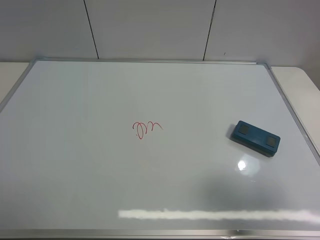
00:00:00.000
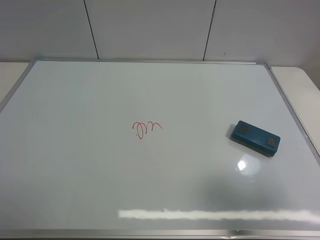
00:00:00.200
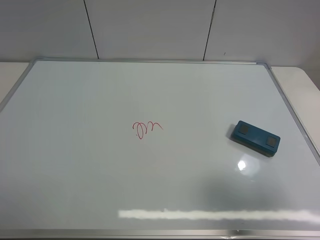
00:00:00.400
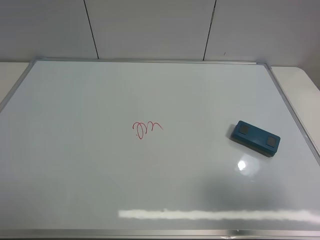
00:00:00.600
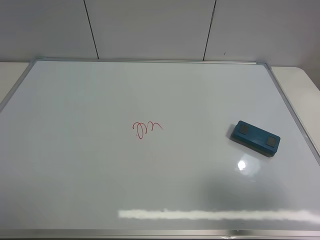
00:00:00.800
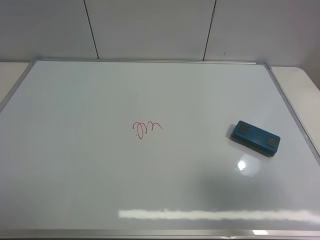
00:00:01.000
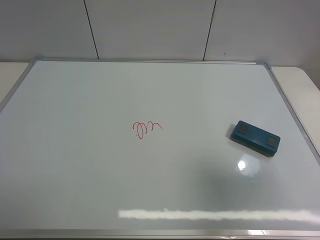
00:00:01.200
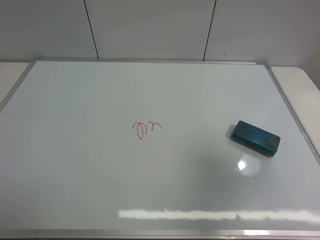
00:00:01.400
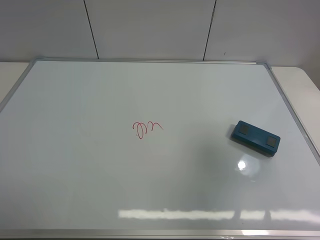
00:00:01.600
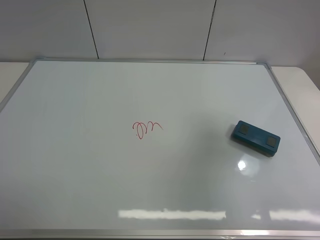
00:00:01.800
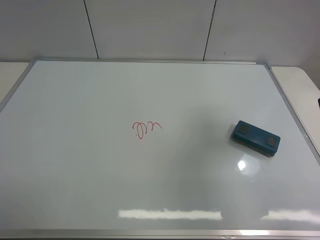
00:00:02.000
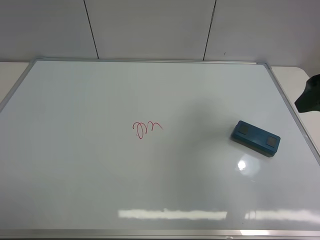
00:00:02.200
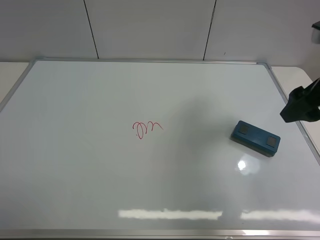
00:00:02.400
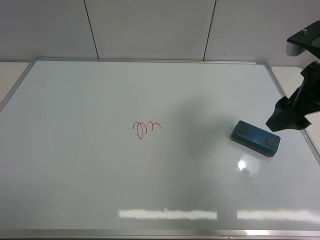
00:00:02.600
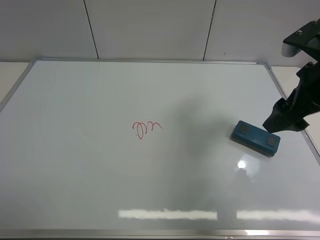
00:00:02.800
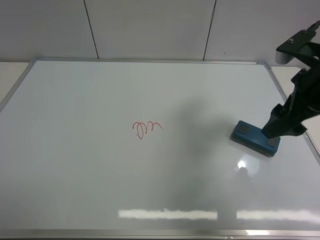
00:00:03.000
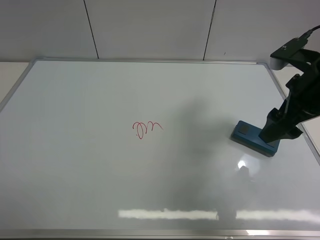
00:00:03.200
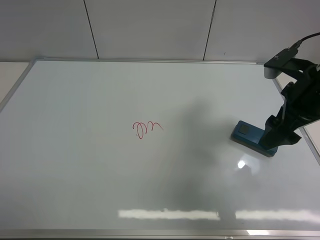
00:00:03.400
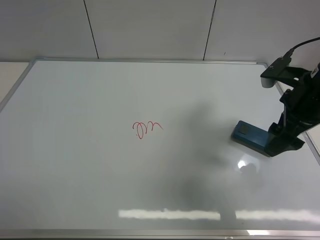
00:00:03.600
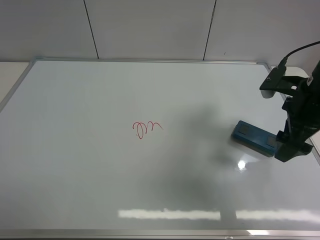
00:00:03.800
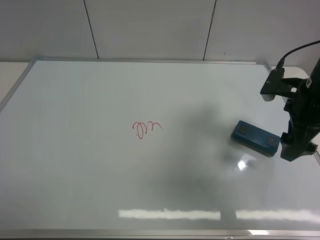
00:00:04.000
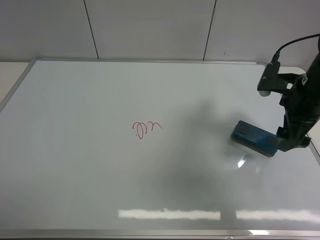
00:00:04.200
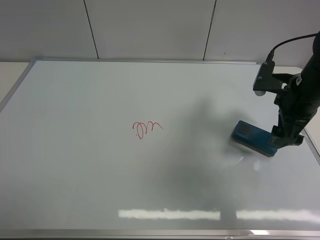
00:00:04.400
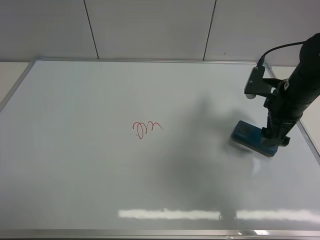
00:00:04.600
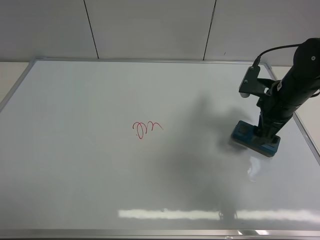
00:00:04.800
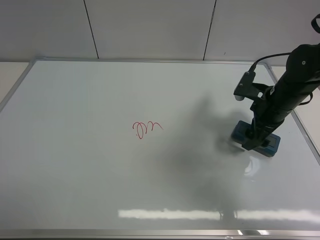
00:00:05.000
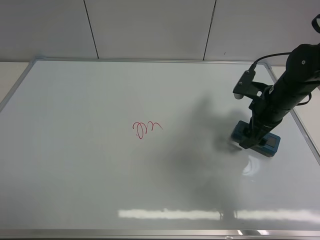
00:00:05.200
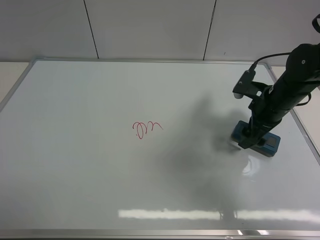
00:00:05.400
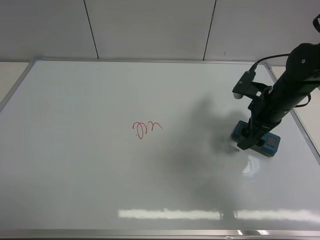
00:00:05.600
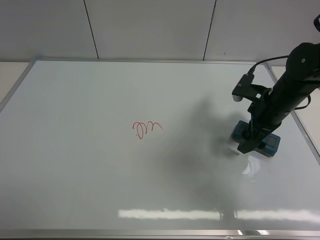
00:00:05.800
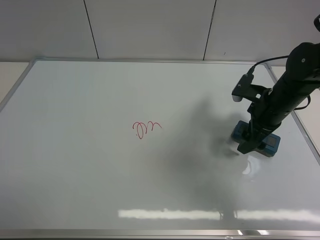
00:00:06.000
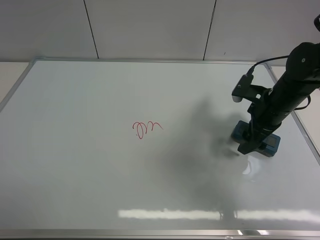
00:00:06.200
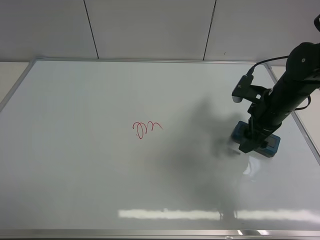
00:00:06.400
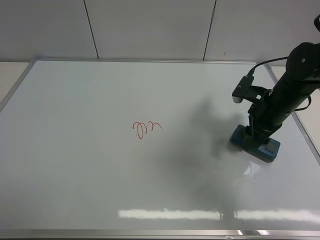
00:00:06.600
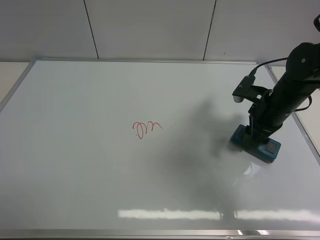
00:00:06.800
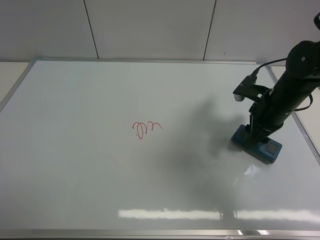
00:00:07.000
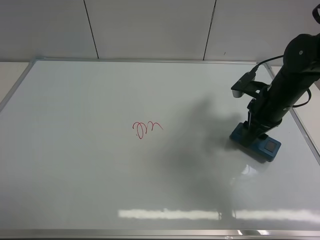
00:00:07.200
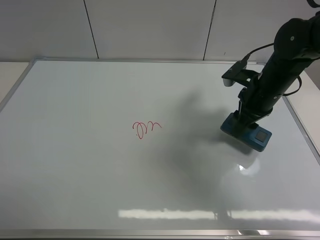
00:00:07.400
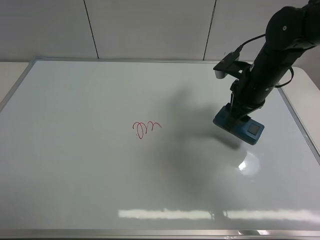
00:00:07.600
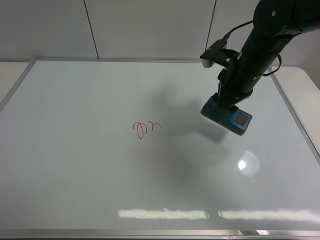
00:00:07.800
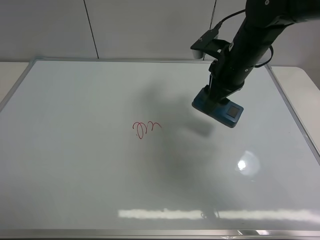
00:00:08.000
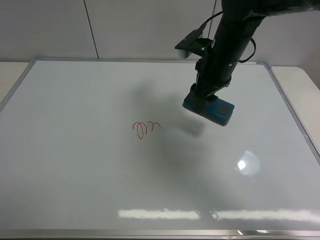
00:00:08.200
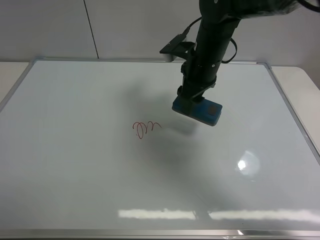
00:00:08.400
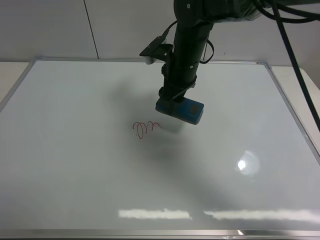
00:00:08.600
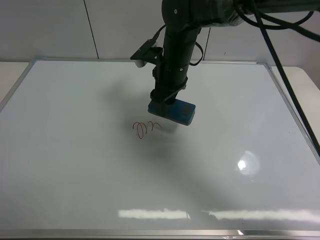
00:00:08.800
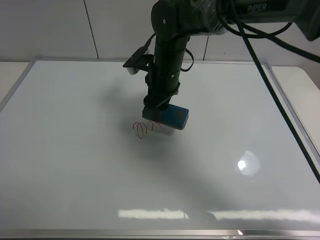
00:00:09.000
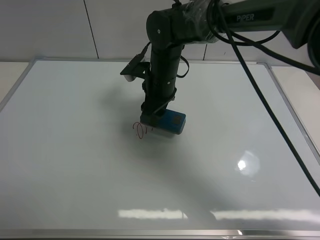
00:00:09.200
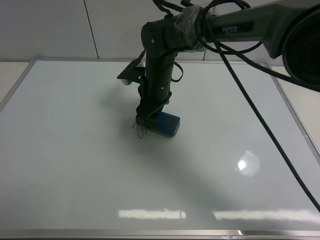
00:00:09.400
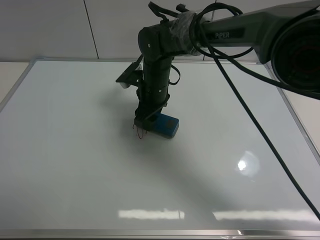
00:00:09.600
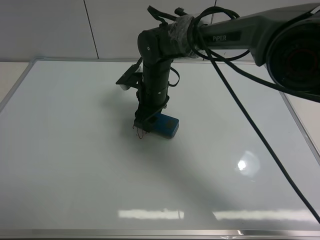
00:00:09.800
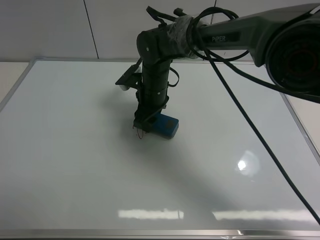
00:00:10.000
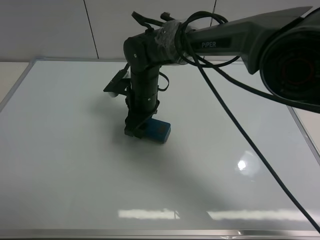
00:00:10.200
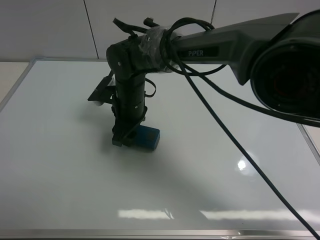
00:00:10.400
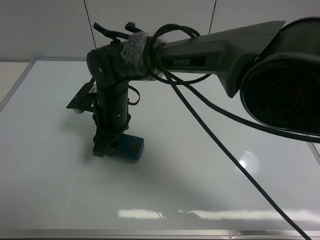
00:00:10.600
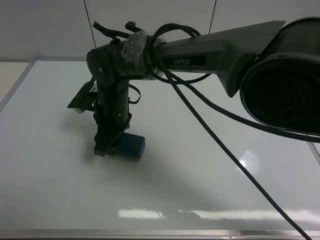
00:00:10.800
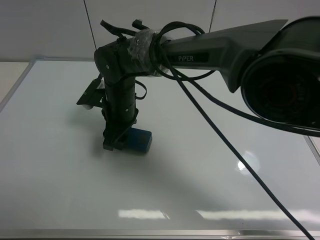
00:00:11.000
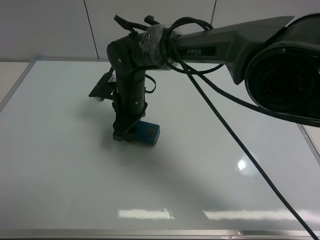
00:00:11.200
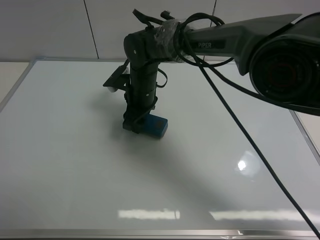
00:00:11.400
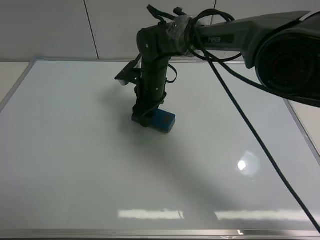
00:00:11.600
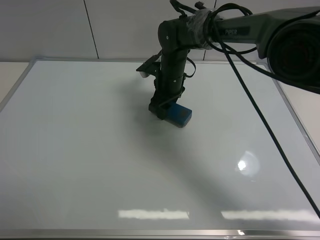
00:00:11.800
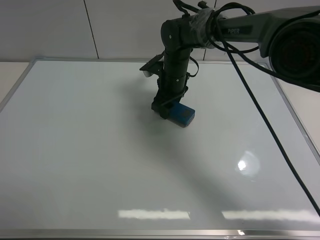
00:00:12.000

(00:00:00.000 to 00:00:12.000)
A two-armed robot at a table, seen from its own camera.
Task of the whole recording: use the right gripper to pick up the board eraser, wipe the notes on the whiteboard clean, and then put them back in place.
Step, 00:00:00.000 - 00:00:07.200: Pick up the board eraser with right gripper.
00:00:00.000 - 00:00:01.600: The right gripper travels forward and upward by roughly 10 cm.
00:00:01.600 - 00:00:03.000: The right gripper goes roughly 15 cm forward, downward and to the left.
00:00:03.000 - 00:00:04.400: The right gripper is displaced downward by roughly 5 cm.
00:00:04.400 - 00:00:06.000: The right gripper moves approximately 5 cm.
00:00:06.000 - 00:00:07.600: The right gripper heads to the left, covering roughly 5 cm, and closes.
00:00:07.600 - 00:00:09.000: The right gripper heads to the left, covering about 20 cm.
00:00:09.000 - 00:00:10.400: The right gripper moves to the left, about 10 cm.
00:00:10.400 - 00:00:12.000: The right gripper travels to the right and forward by approximately 15 cm.

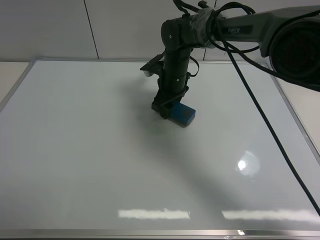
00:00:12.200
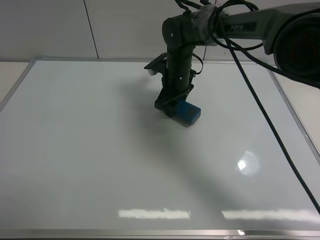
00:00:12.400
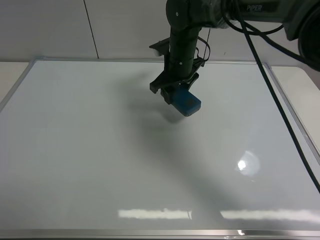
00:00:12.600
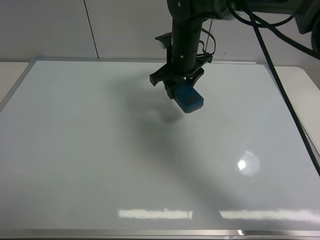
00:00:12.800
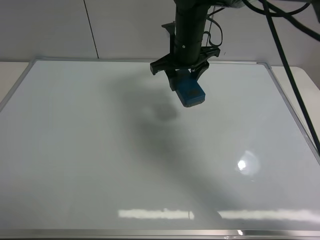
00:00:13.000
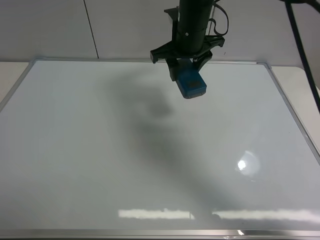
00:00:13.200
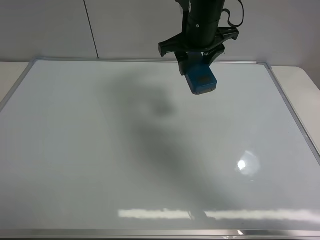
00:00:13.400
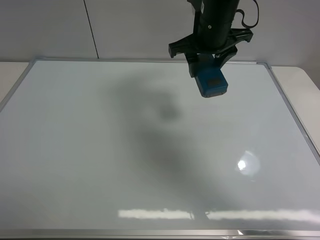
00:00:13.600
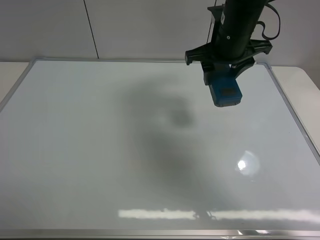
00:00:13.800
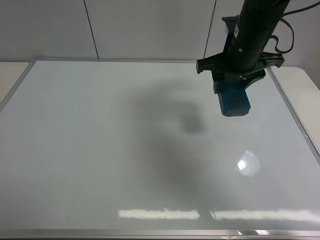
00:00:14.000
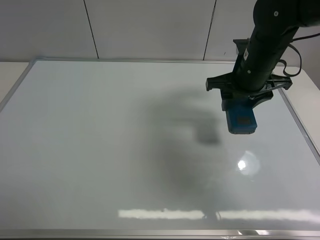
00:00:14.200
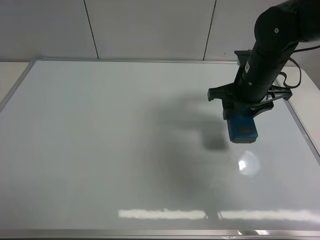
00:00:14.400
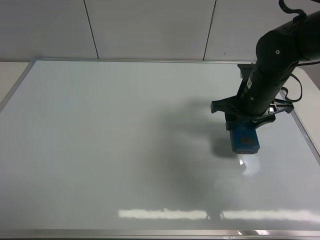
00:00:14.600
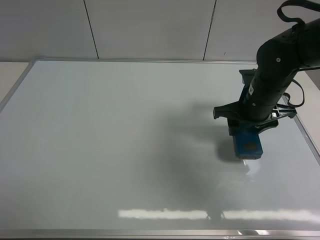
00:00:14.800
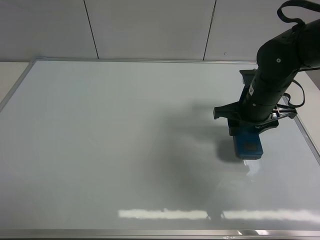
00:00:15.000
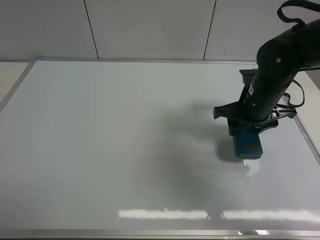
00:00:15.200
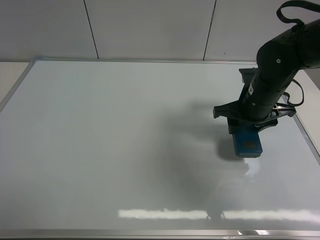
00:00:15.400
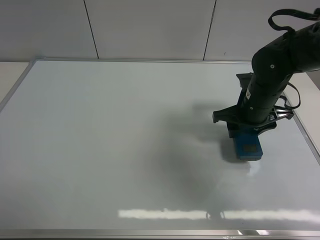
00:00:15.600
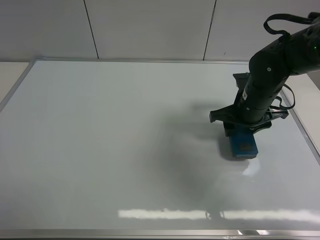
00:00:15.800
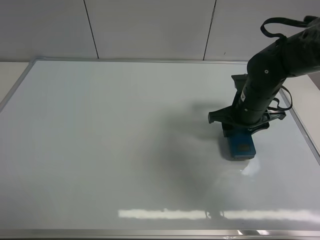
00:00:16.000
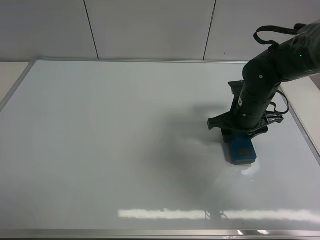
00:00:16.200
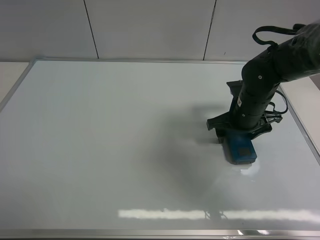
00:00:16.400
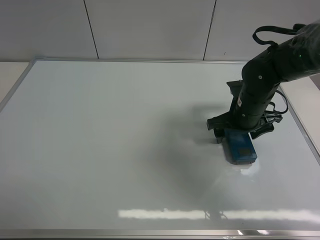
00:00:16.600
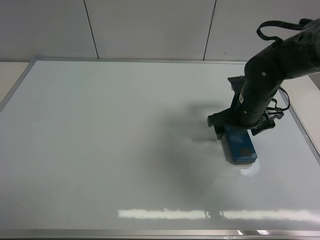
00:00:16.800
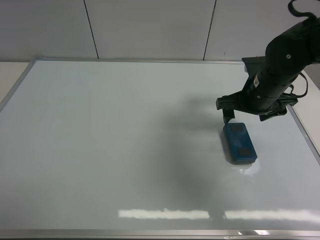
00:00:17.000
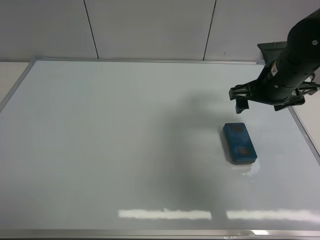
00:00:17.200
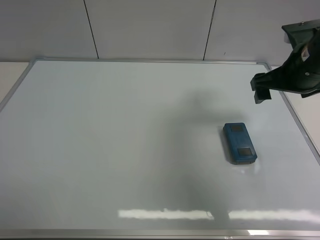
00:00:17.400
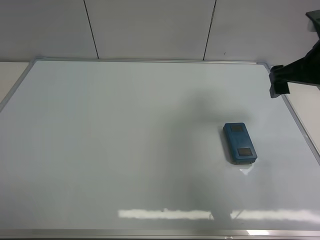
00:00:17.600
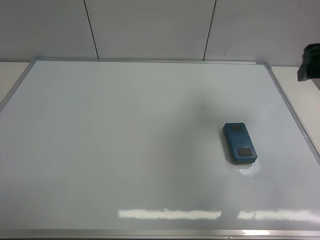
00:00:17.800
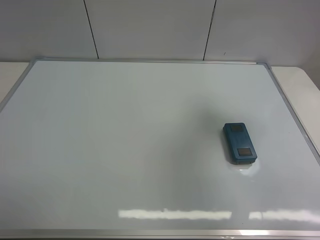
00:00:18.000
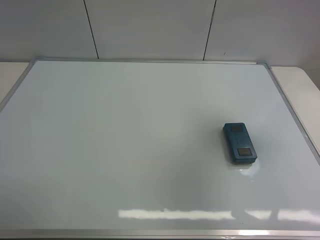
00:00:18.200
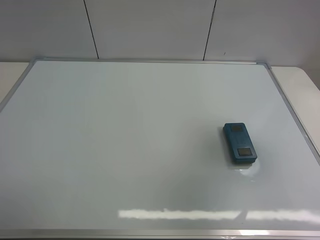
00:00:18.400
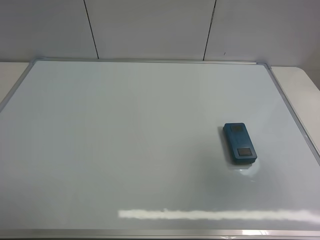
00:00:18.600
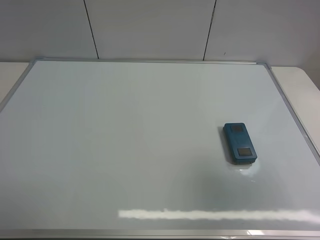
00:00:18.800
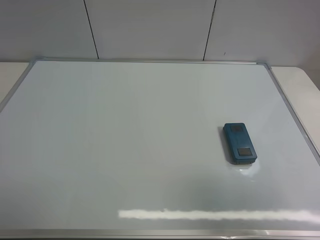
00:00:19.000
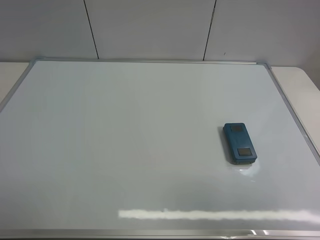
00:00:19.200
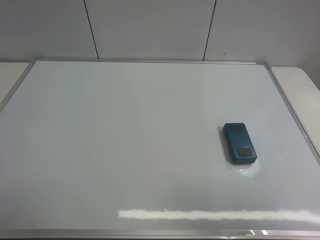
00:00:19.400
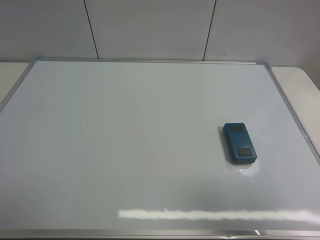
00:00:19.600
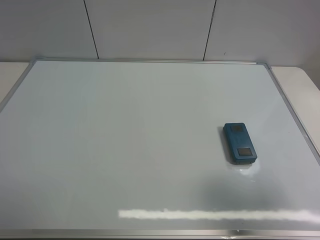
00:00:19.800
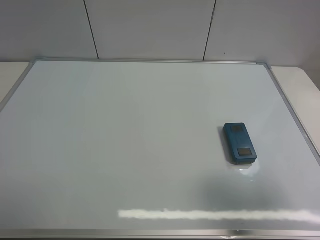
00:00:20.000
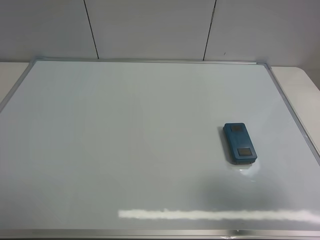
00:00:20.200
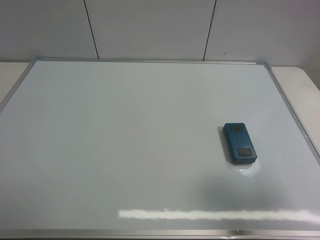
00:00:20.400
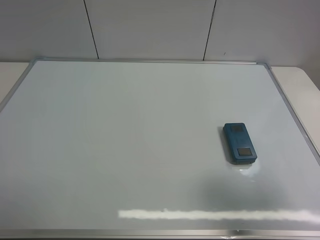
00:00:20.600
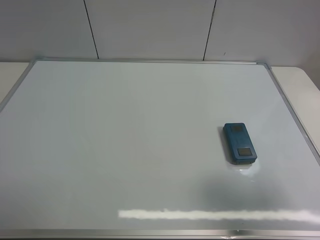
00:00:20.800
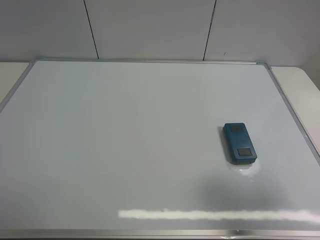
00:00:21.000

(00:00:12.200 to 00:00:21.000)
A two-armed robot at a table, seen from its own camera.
Task of the whole recording: use the right gripper to pick up the board eraser, wipe the notes on the whiteboard clean, and then put them back in place.
Step, 00:00:12.400 - 00:00:16.800: Place the board eraser on the right side of board with right gripper.
00:00:12.200 - 00:00:13.600: The right gripper is displaced upward by some 15 cm.
00:00:13.600 - 00:00:15.200: The right gripper travels downward, to the right and backward by roughly 15 cm.
00:00:15.200 - 00:00:16.600: The right gripper opens its fingers.
00:00:16.600 - 00:00:18.000: The right gripper shifts some 25 cm upward, to the right and backward, and opens its fingers.
00:00:18.000 - 00:00:19.600: The right gripper shifts approximately 25 cm backward.
